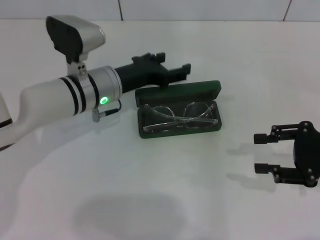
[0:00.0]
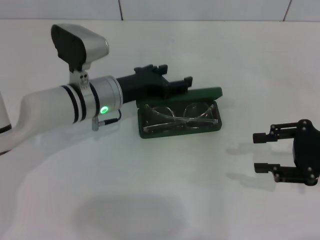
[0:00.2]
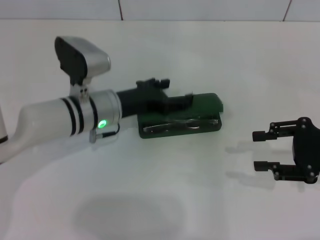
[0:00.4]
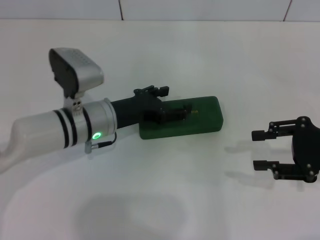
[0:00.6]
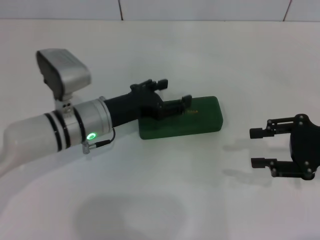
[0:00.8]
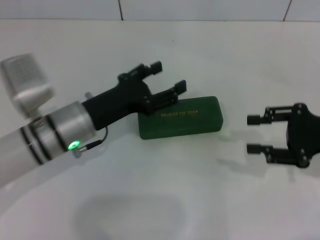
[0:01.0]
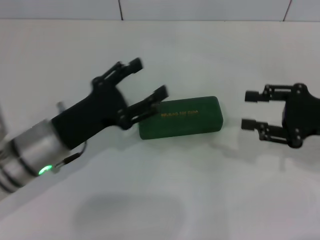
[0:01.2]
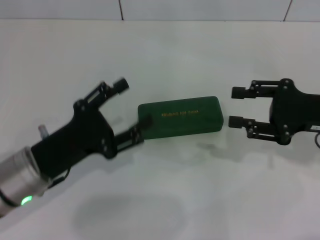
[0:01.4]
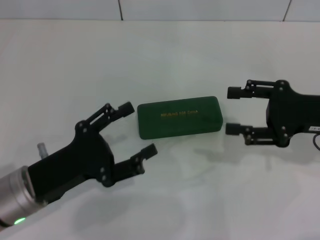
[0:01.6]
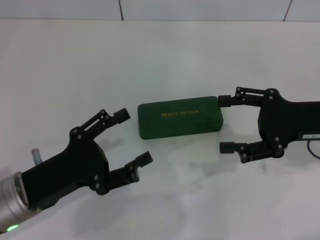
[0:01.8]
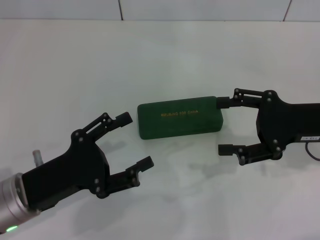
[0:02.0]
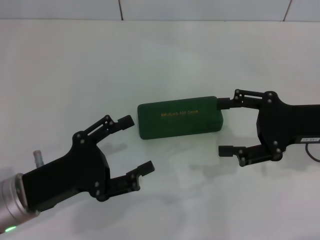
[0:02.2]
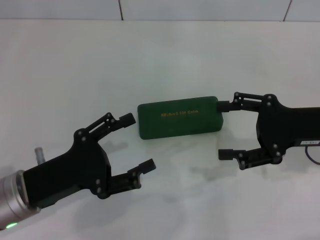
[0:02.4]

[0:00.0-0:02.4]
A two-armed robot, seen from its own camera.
0:00.0 to 0:01.2: The left gripper shifts some 15 cm backward and to the left.
0:01.2 to 0:02.4: The right gripper opens its fingers. The left gripper travels backward by some 5 cm.
